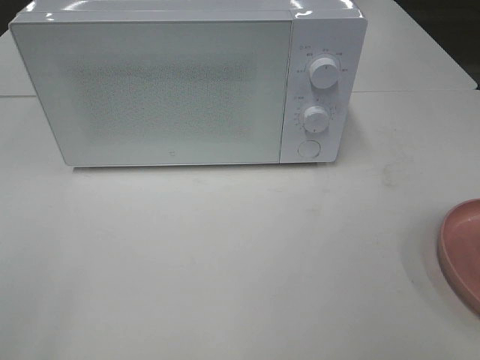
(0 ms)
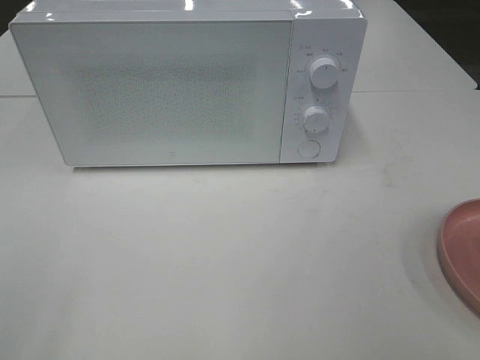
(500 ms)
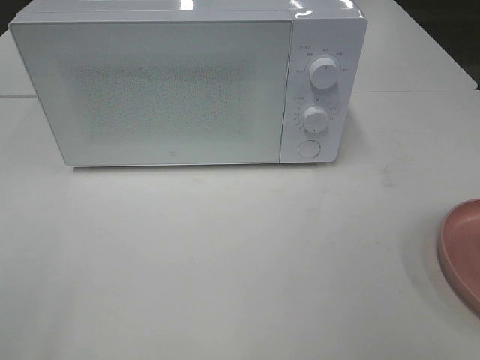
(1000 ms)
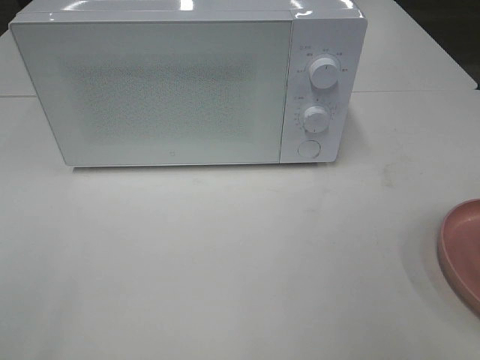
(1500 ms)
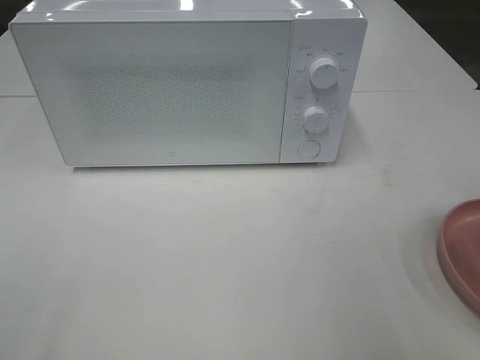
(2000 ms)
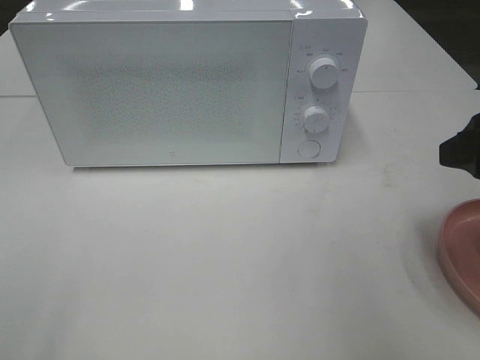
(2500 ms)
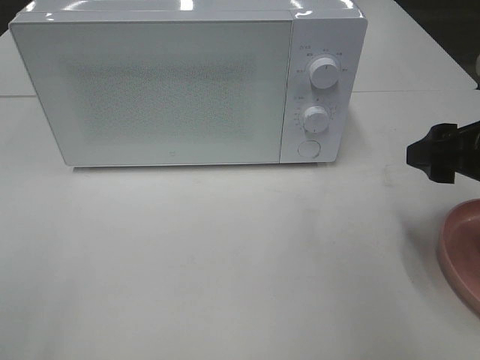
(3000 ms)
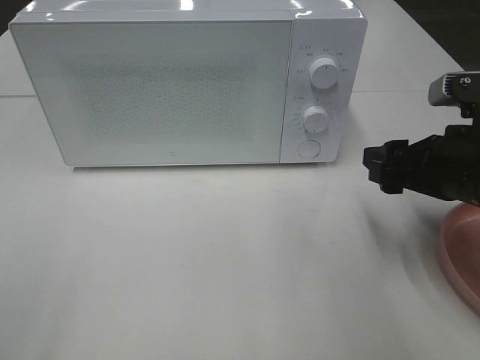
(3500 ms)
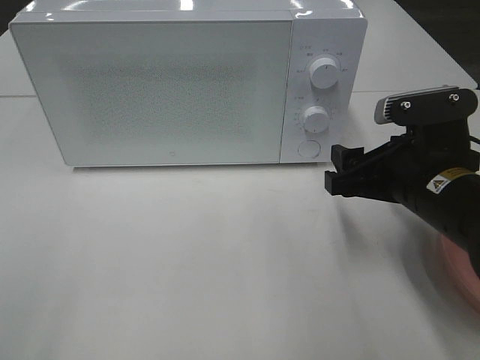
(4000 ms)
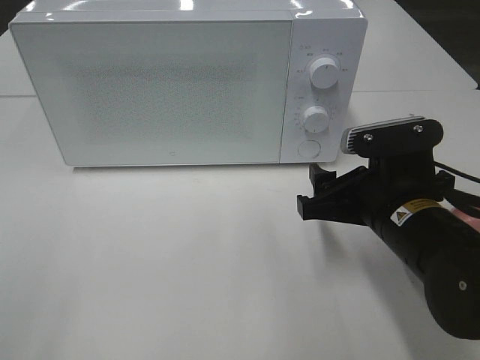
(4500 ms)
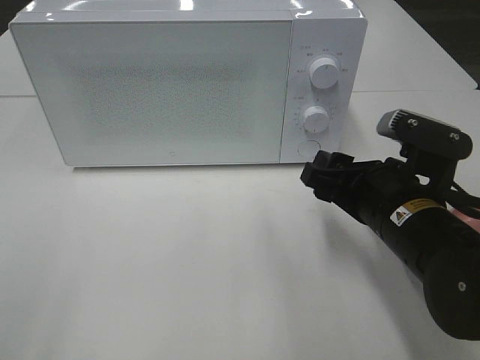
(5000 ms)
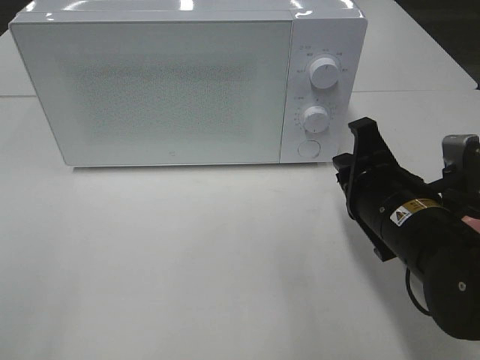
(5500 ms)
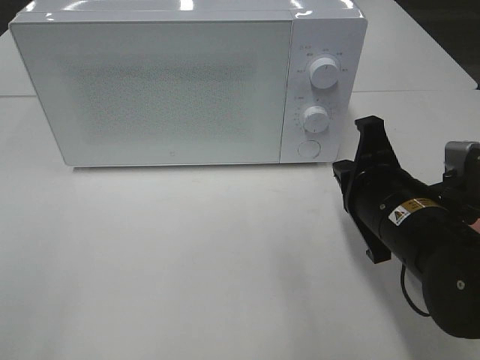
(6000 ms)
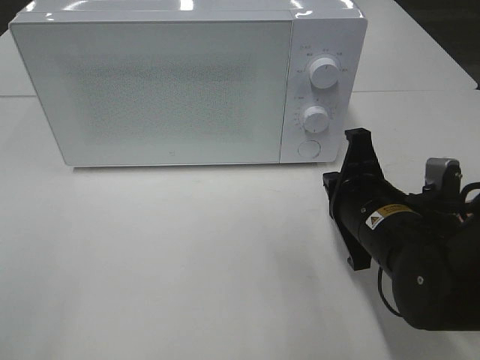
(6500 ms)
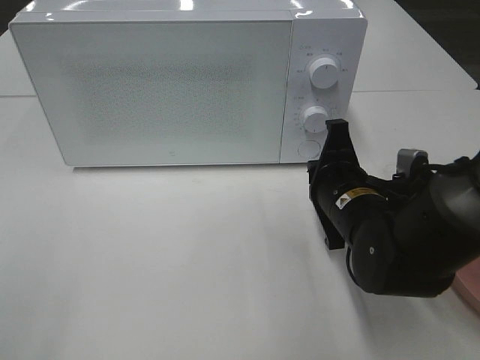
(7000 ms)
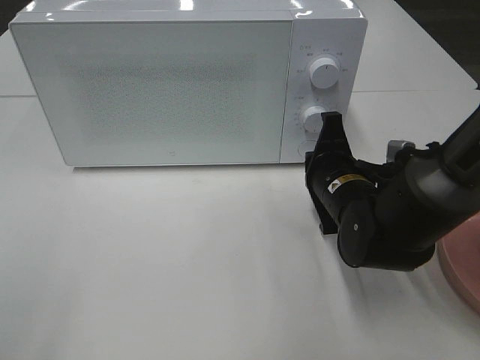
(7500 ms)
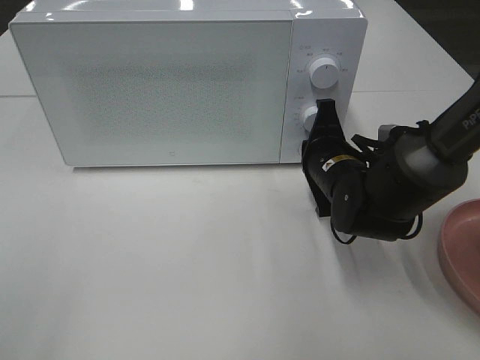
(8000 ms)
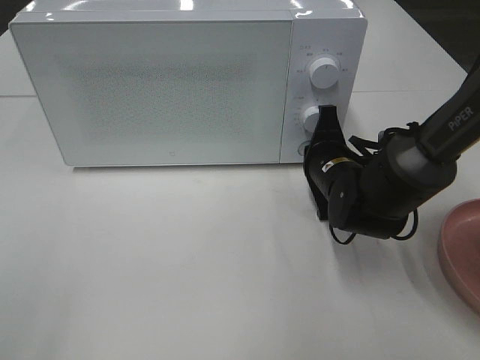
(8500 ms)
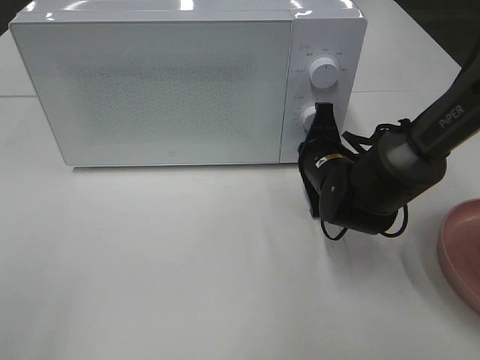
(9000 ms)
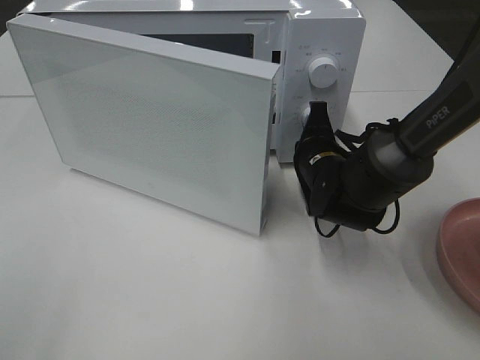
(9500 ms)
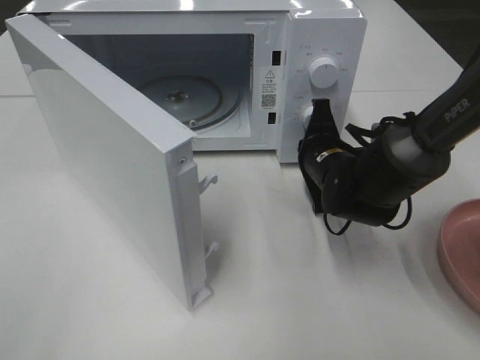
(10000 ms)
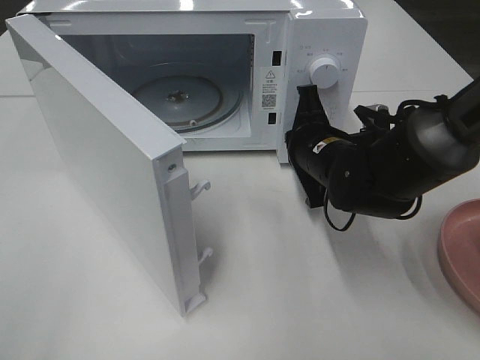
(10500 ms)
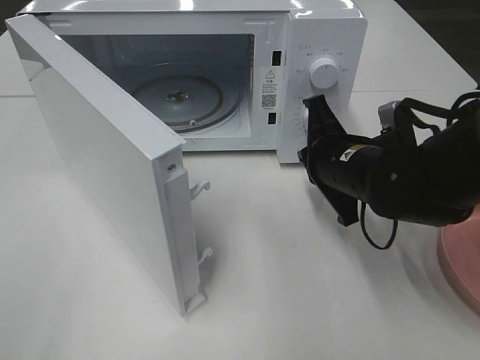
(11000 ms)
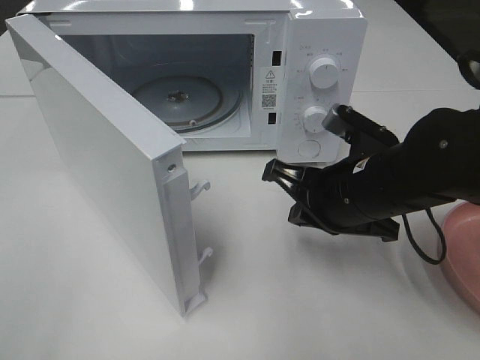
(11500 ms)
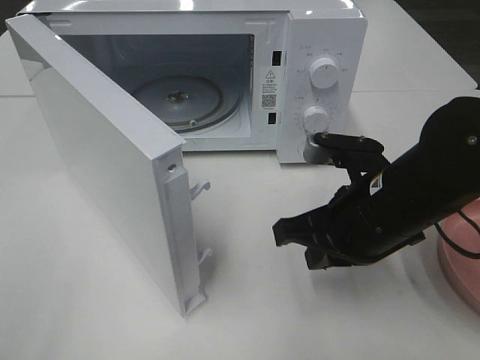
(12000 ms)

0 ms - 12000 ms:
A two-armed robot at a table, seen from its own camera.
Task of the whole recording: Heat the burger.
Step, 0 ms - 10000 ms: Right hand: press the switch.
2000 ms - 4000 ms: The right gripper travels downward, forward and to the left by some 20 cm.
4000 ms - 6000 ms: The right gripper closes up.
6000 ms - 8000 ms: The right gripper goes some 10 cm forward.
10000 ms - 12000 ms: The right gripper heads backward and upward, covering about 15 cm.

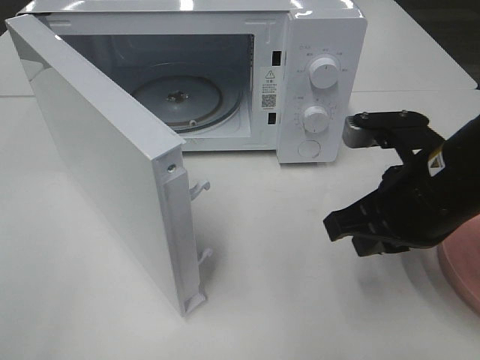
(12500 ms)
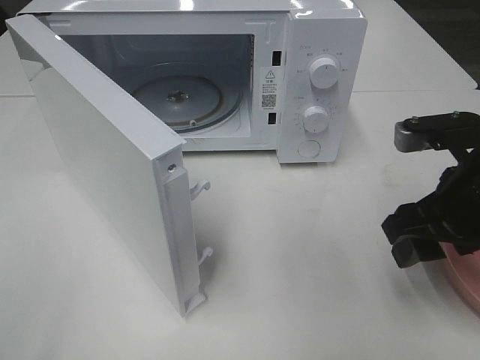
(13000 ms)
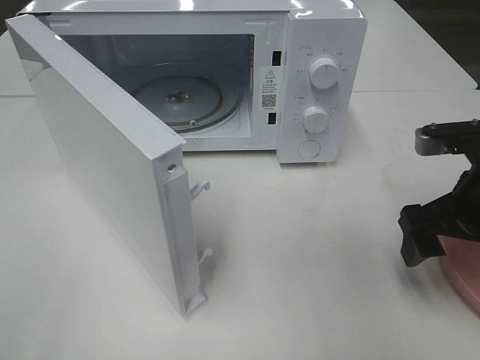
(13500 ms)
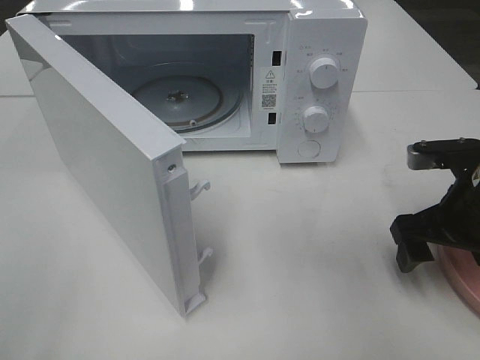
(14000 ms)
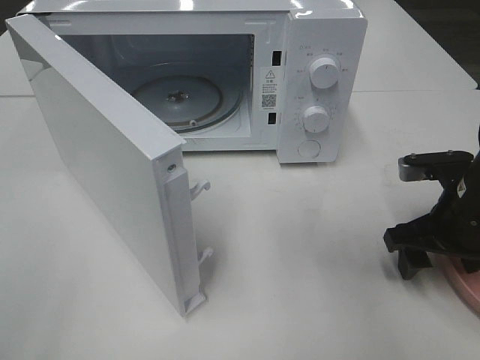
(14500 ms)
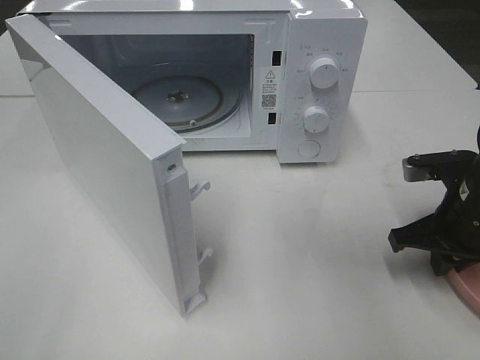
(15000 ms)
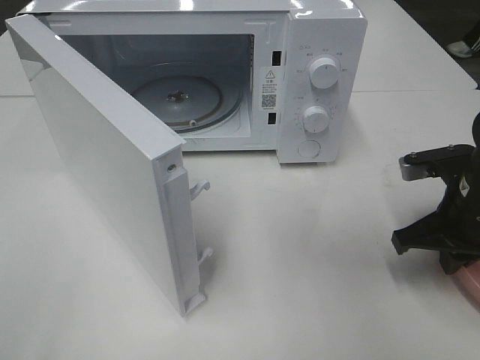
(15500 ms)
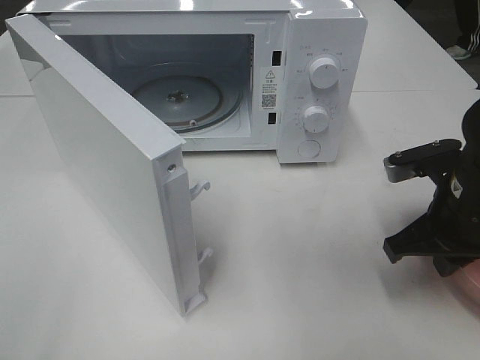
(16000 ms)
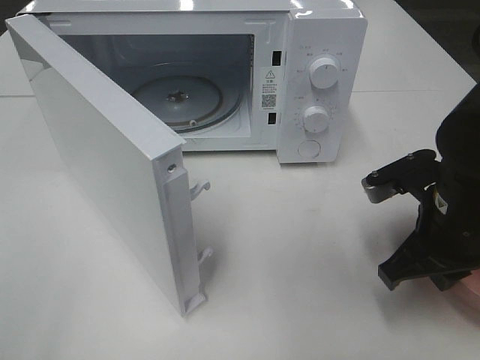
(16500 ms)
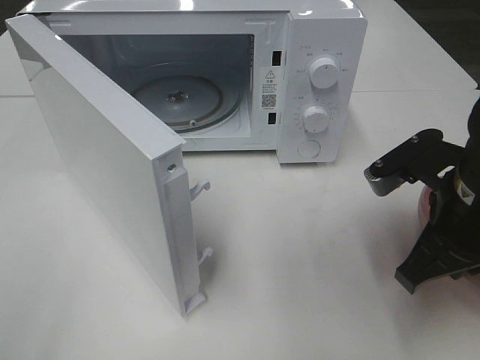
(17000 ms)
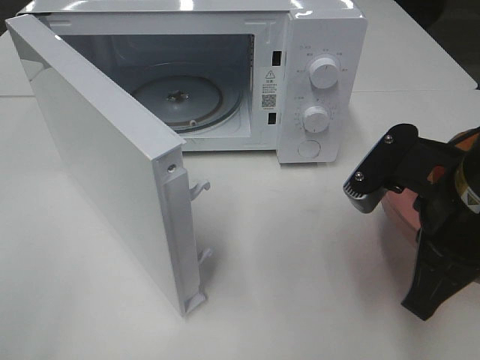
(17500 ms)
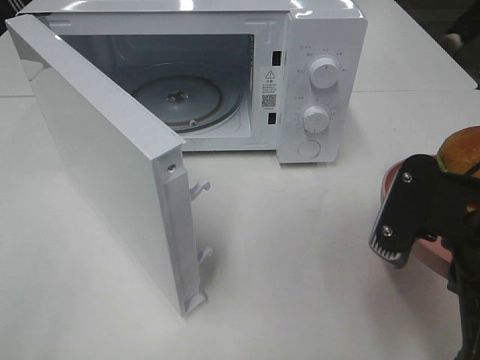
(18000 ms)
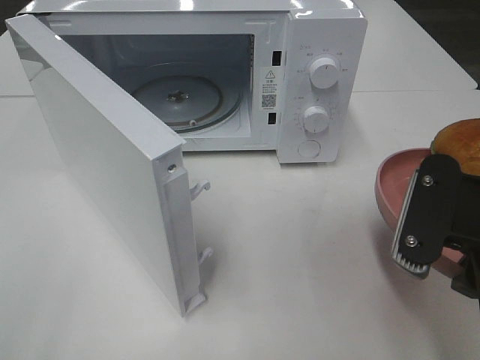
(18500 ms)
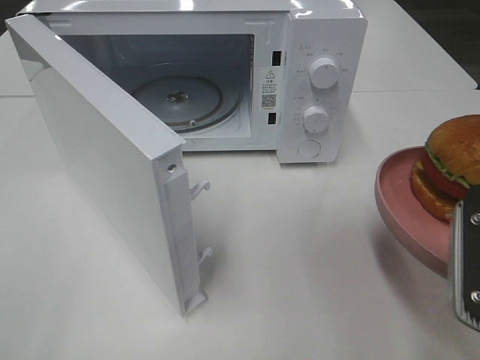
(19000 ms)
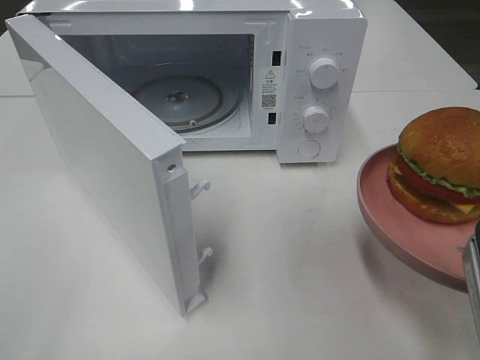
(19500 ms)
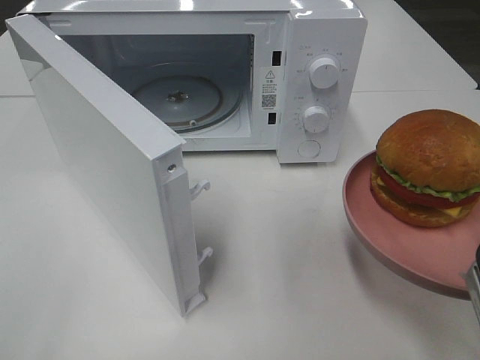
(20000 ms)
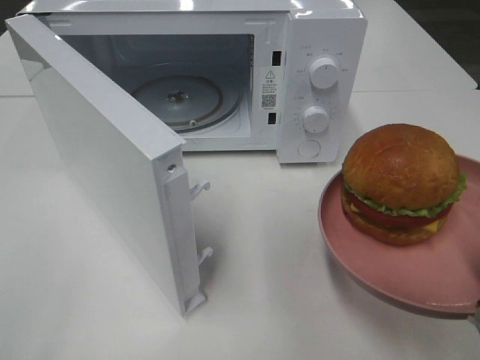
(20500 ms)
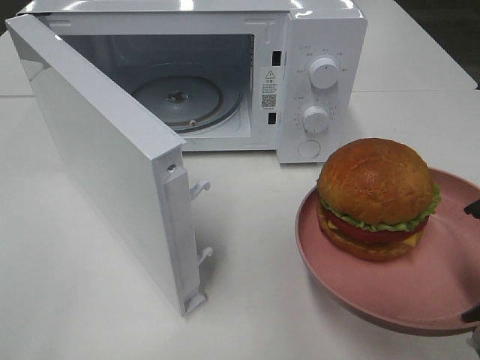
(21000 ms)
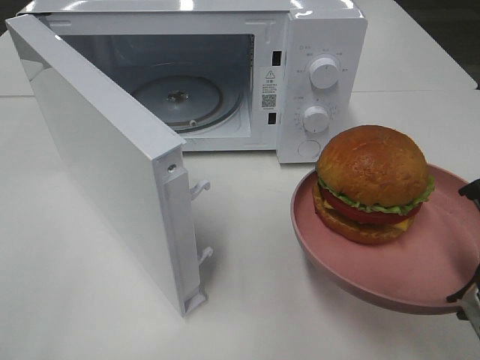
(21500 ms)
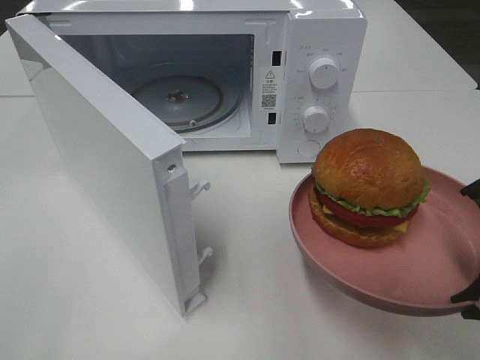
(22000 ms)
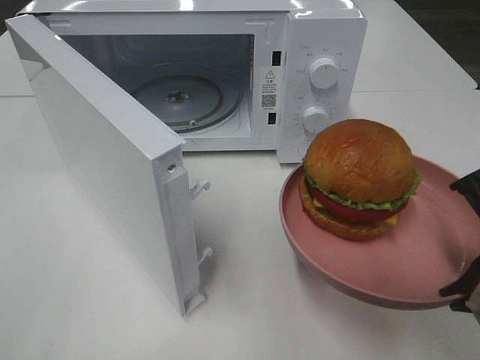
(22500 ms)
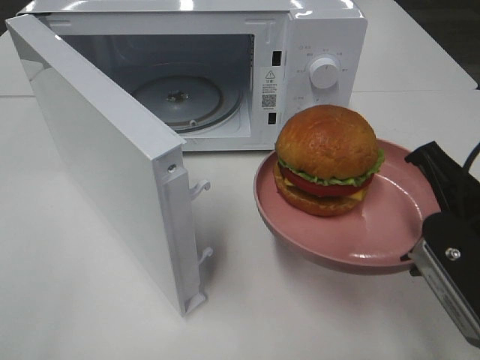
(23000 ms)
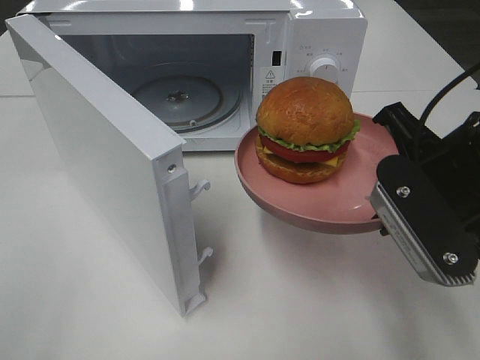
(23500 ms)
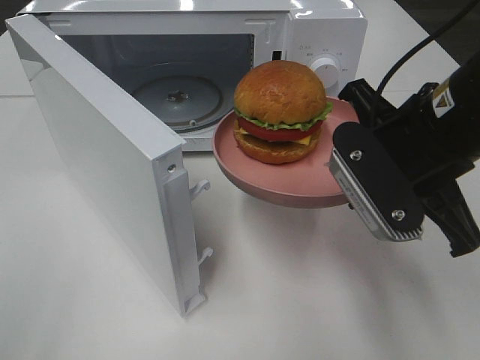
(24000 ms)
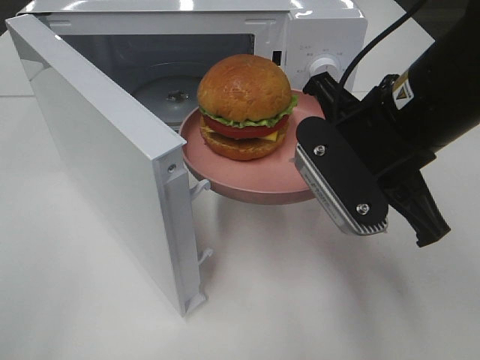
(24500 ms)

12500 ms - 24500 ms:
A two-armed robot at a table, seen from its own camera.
Task of the whole recording: Heat the burger.
Step, 12500 ms - 15000 ms: Right hand: grab the plate with the hamburger.
12500 ms - 14500 ms: The right gripper heads to the right and downward, covering some 10 cm, and opens up.
14500 ms - 16500 ms: The right gripper moves some 5 cm, and closes up.
16500 ms - 18500 ms: The right gripper goes roughly 10 cm backward and upward.
20500 ms - 22500 ms: The grippers make only small movements.
22500 ms - 24500 ms: The right gripper heads forward and to the left, covering about 15 cm.

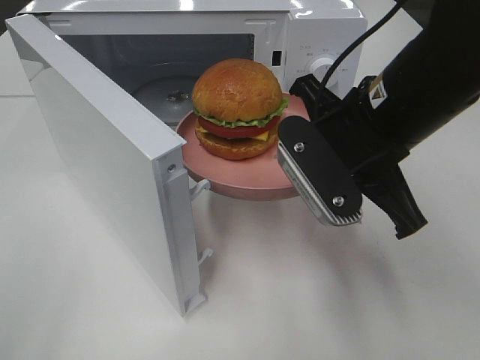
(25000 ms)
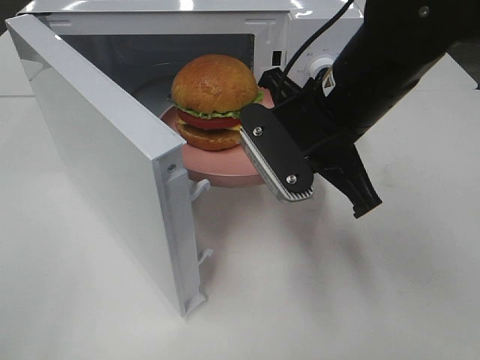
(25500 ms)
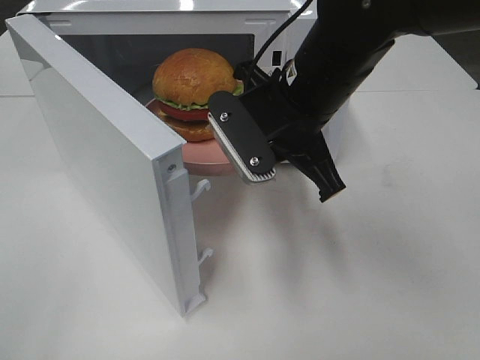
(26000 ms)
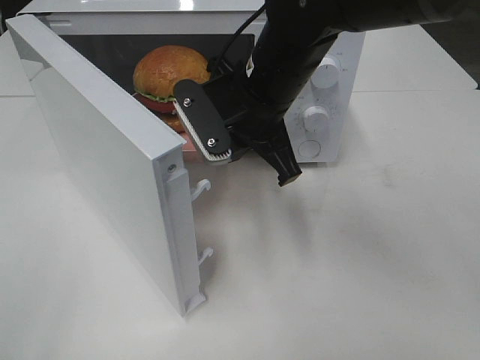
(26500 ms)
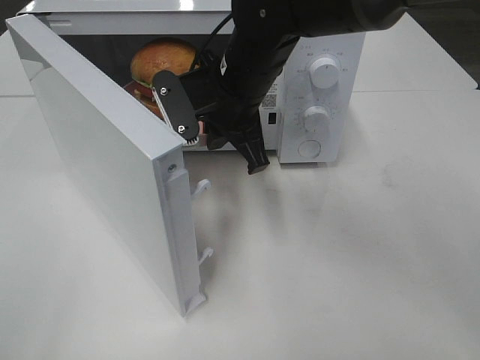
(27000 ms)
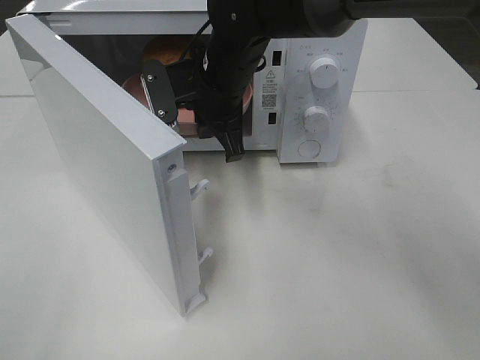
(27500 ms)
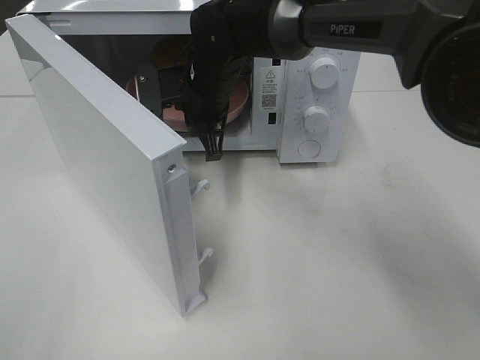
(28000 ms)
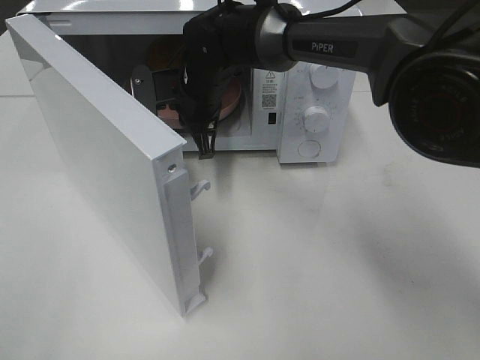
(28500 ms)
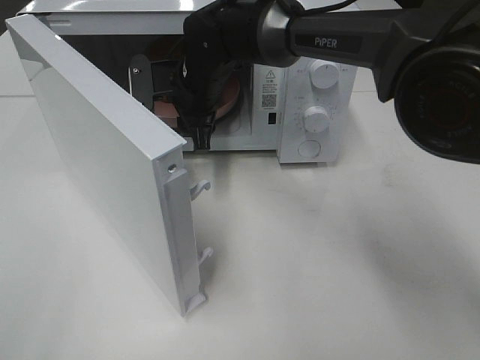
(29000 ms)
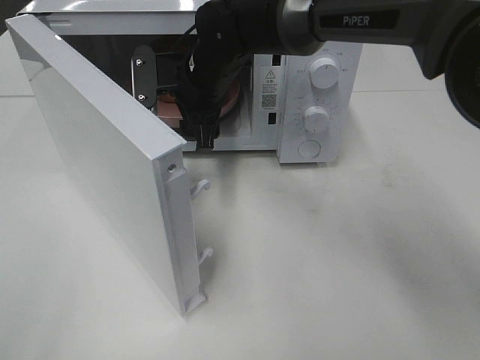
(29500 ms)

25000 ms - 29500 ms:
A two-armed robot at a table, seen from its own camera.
Task of the whole recording: Heat the burger.
Step, 25000 ms - 28500 ms: Right hand: place the plate in the microwave.
25000 ms - 27000 ms: The right gripper is displaced forward and to the left by approximately 15 cm.
27000 ms - 29500 ms: The right gripper travels forward by roughly 5 cm, and opens up.
